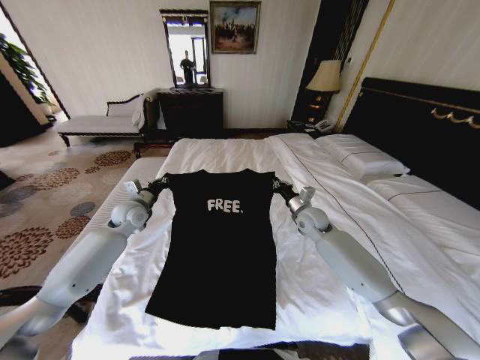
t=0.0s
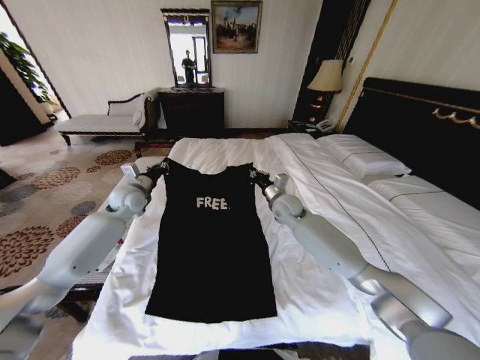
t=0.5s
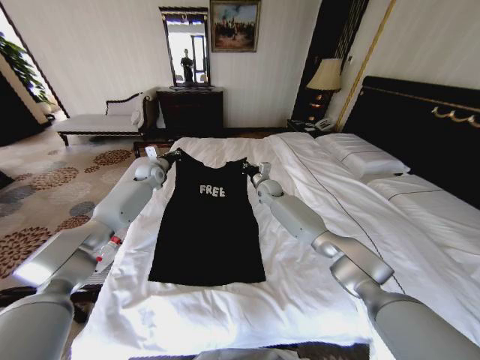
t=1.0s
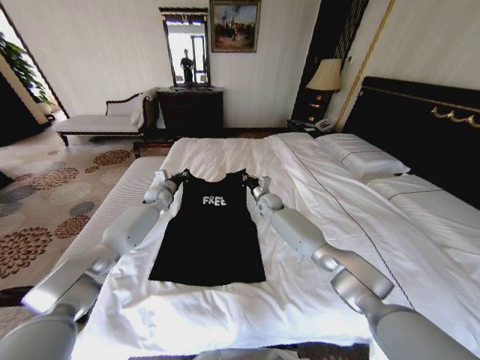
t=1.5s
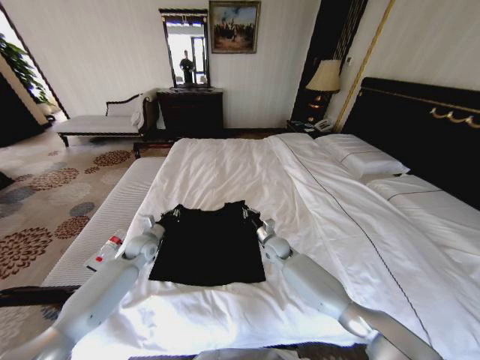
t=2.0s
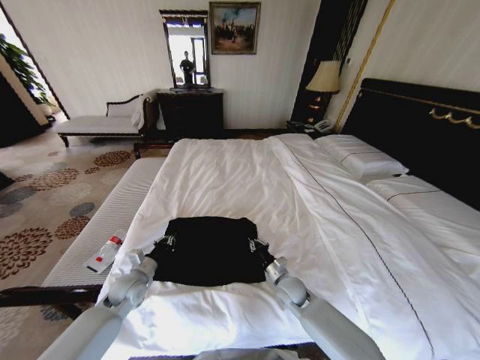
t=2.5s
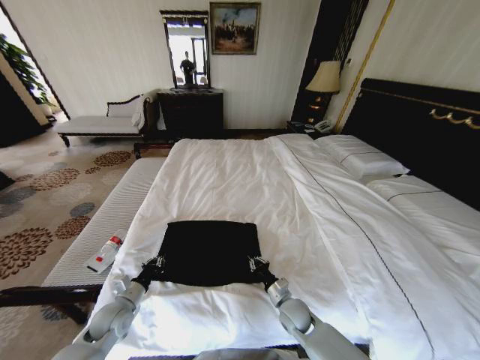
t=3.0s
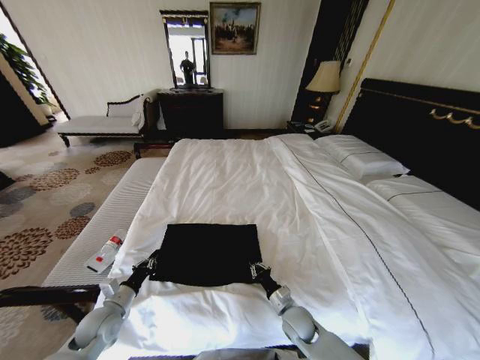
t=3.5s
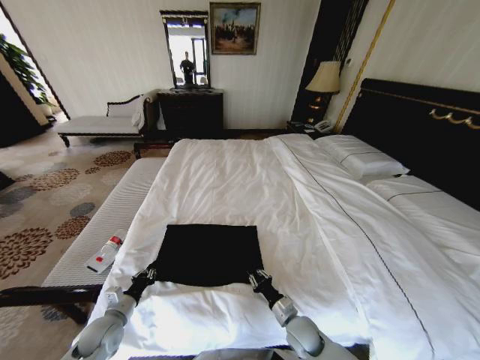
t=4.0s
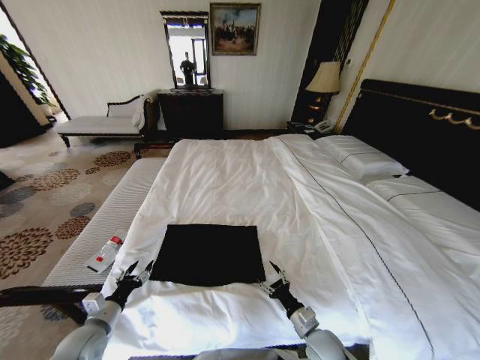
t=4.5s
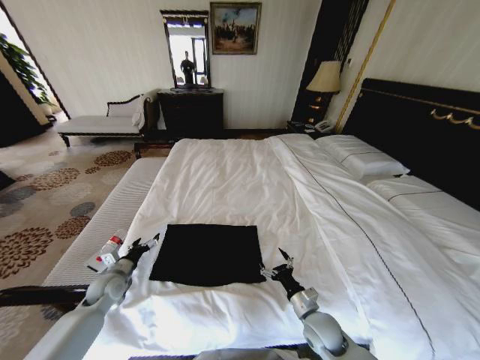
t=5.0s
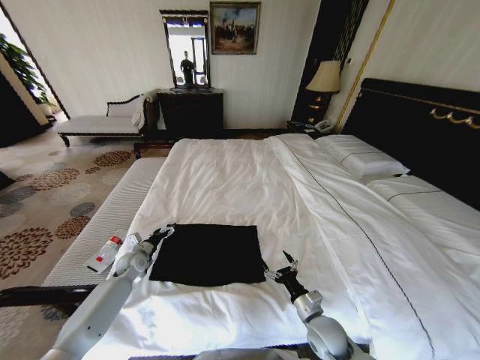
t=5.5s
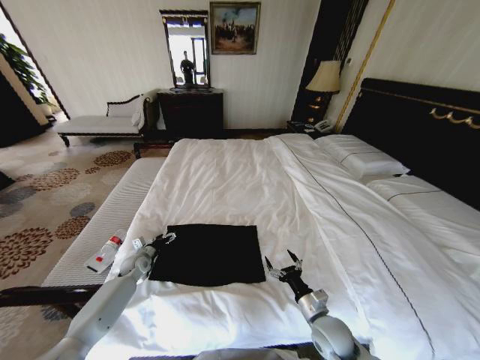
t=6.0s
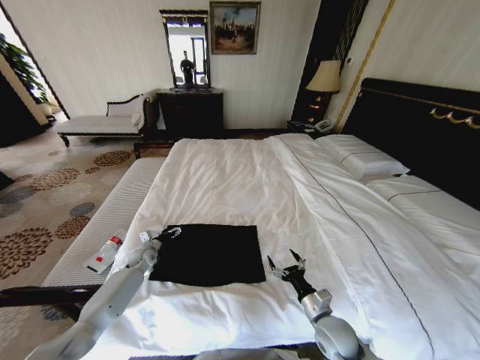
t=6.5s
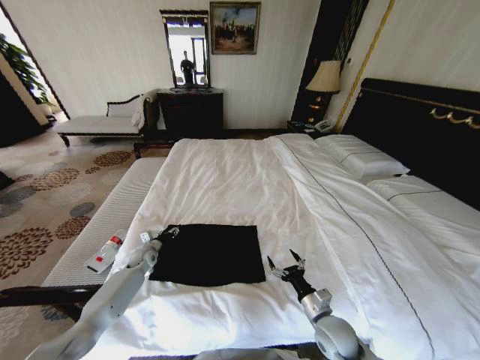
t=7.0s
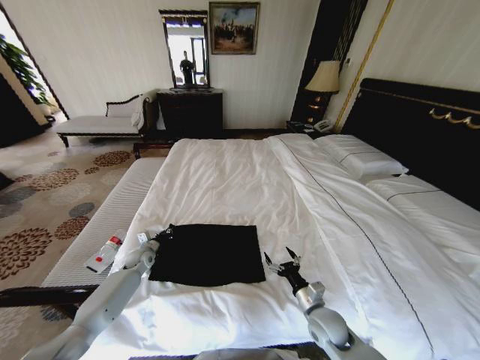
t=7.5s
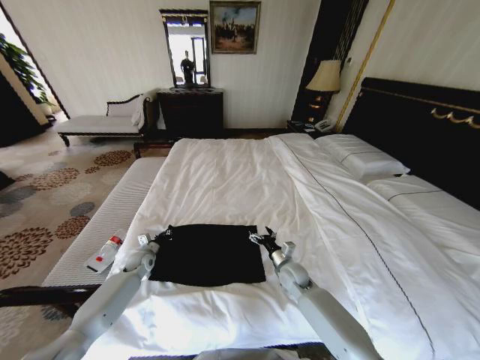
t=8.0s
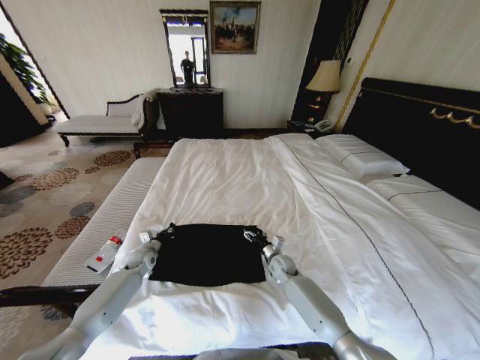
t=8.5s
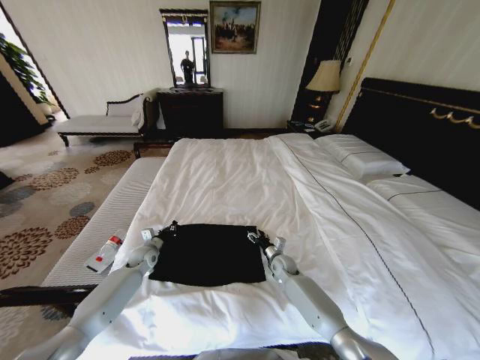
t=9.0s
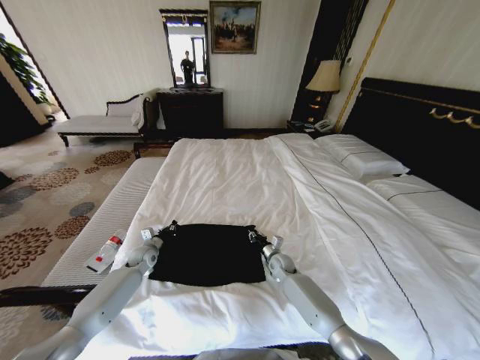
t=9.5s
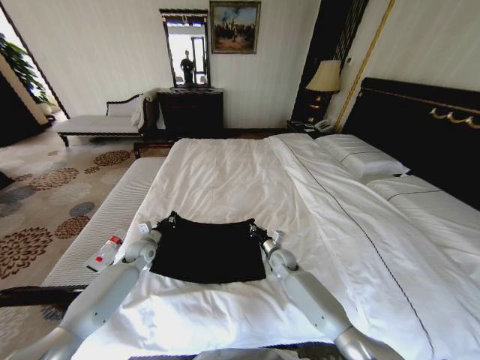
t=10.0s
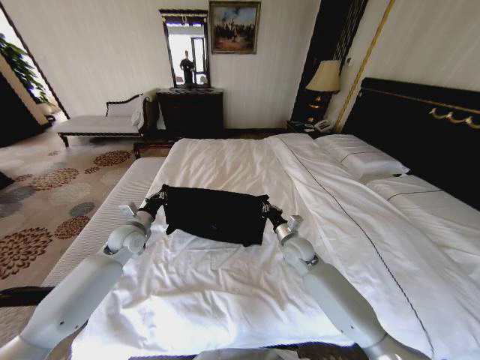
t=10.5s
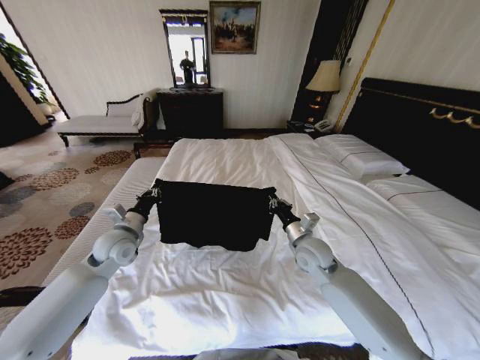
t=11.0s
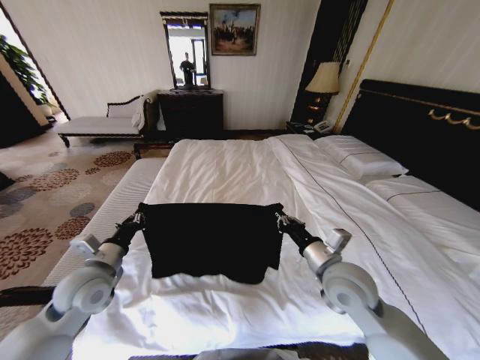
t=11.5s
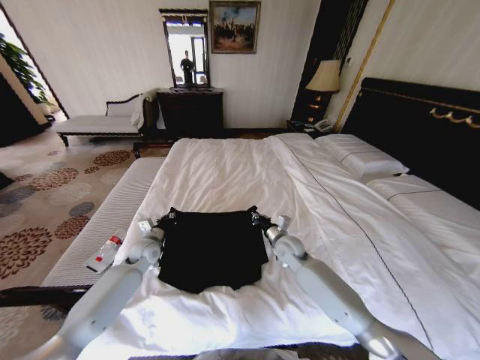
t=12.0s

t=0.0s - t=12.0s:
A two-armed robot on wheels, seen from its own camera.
Task of the whole recording: Fold the clothes on the bed.
t=0.0s - t=2.0s: The right gripper travels downward and to the left by roughly 15 cm, while the left gripper moves downward, about 15 cm, and goes forward and returns, about 15 cm each way.
t=2.0s - t=4.0s: The grippers both shift backward by about 25 cm.
t=4.0s - t=6.0s: The right gripper goes approximately 10 cm upward and to the right, and opens its fingers. The left gripper moves forward, approximately 20 cm, and opens.
t=6.0s - t=8.0s: The right gripper moves forward, some 15 cm; the left gripper closes its fingers.
t=8.0s - t=10.0s: The left gripper travels upward by approximately 5 cm; the right gripper is displaced forward by about 5 cm, and closes.
t=10.0s - t=12.0s: The right gripper shifts about 10 cm upward, while the left gripper moves approximately 15 cm backward and comes back.

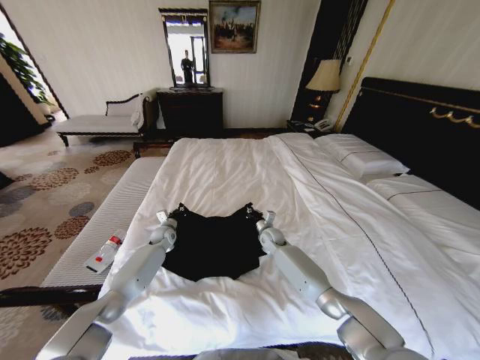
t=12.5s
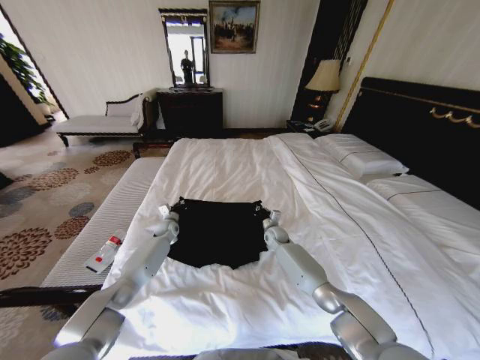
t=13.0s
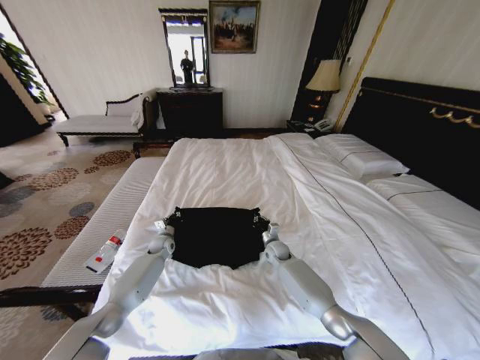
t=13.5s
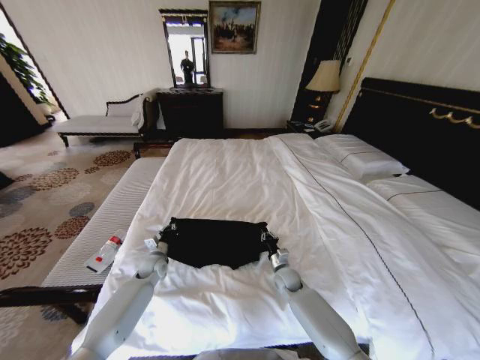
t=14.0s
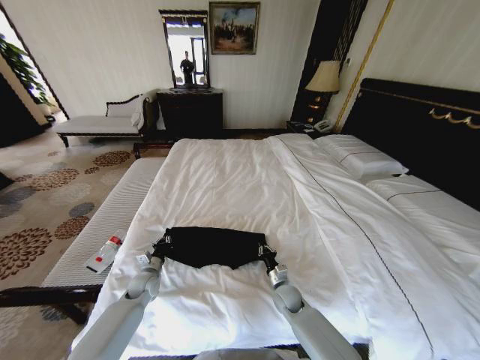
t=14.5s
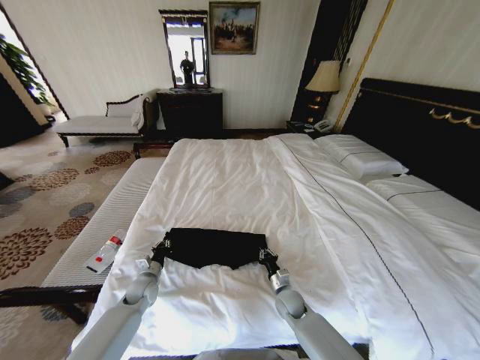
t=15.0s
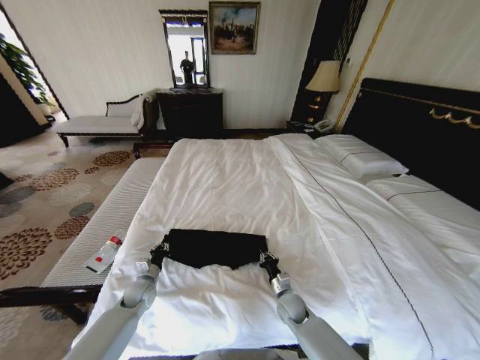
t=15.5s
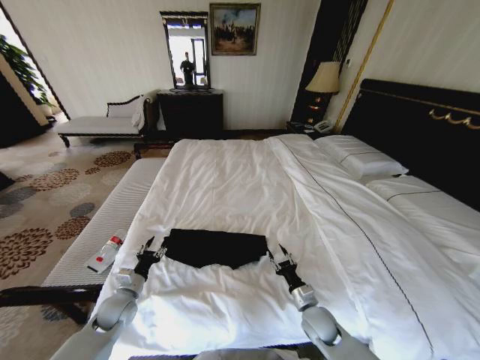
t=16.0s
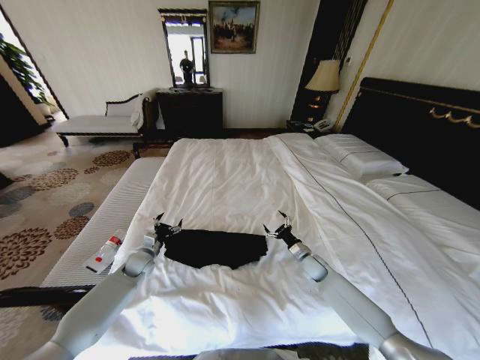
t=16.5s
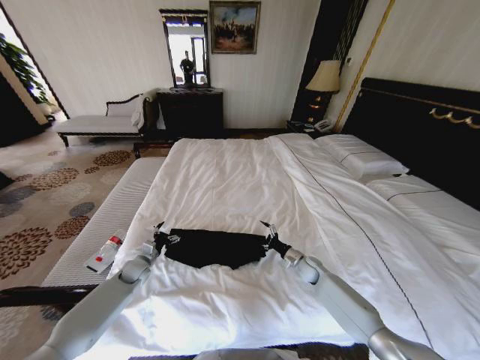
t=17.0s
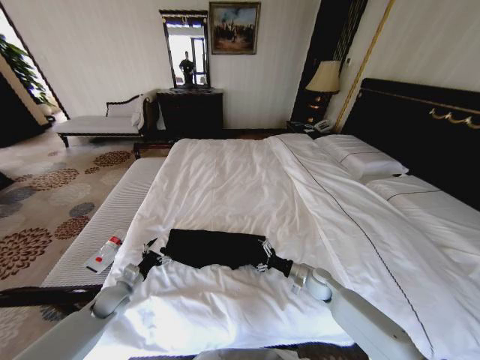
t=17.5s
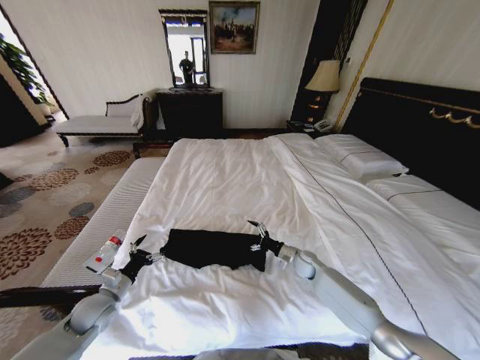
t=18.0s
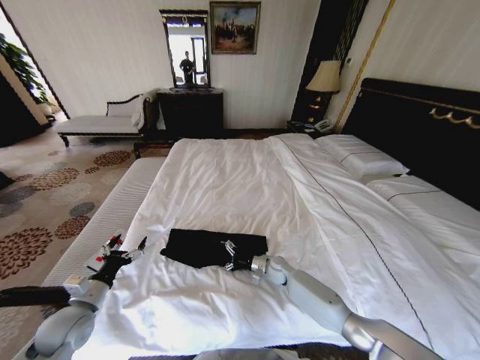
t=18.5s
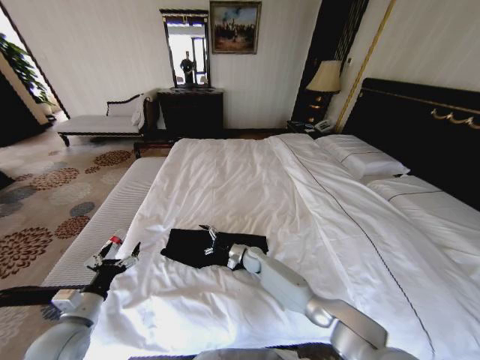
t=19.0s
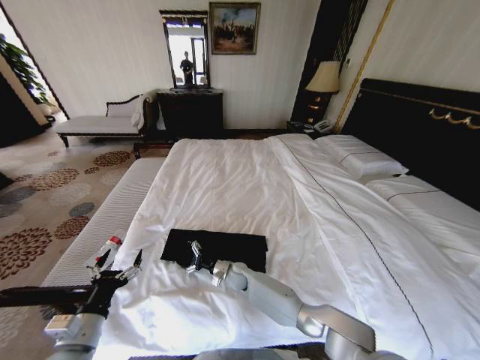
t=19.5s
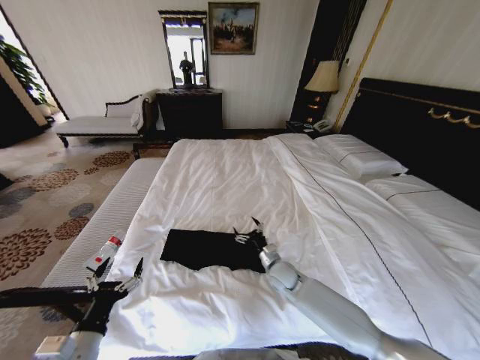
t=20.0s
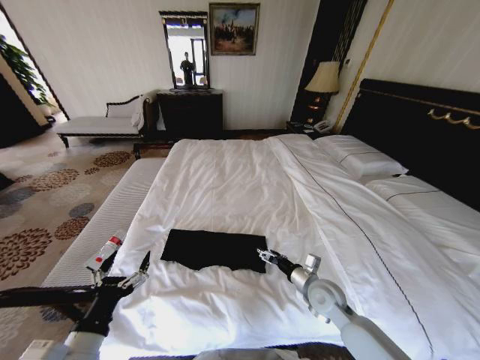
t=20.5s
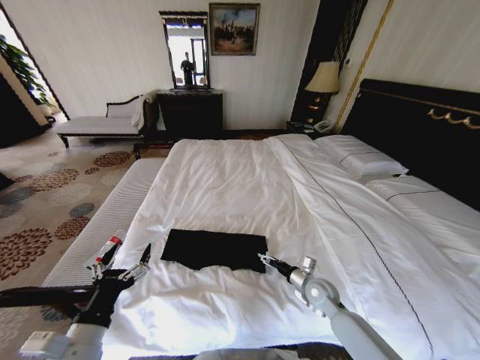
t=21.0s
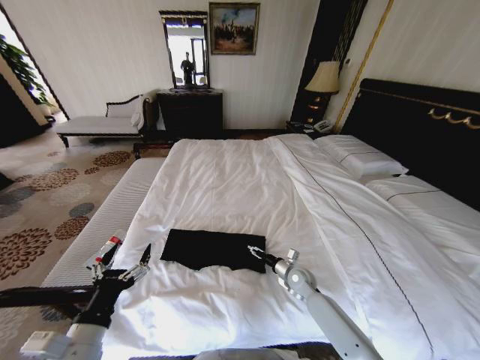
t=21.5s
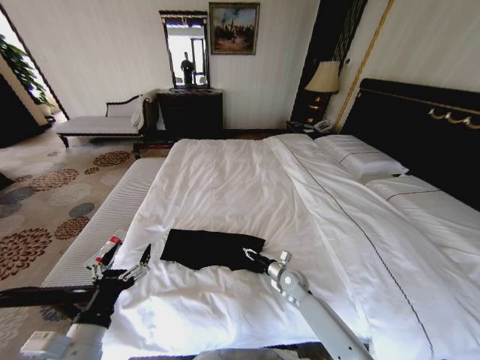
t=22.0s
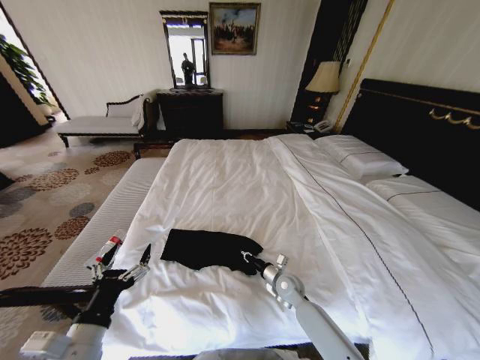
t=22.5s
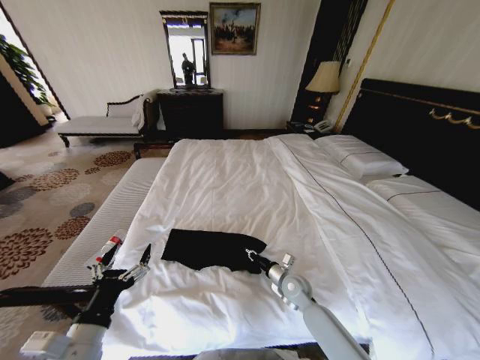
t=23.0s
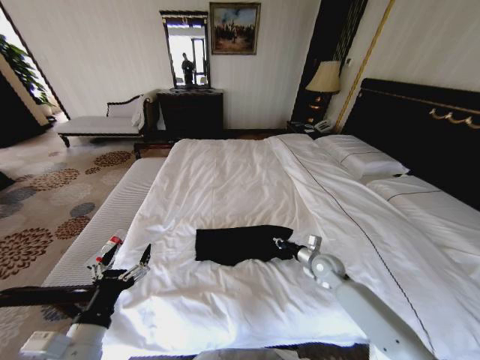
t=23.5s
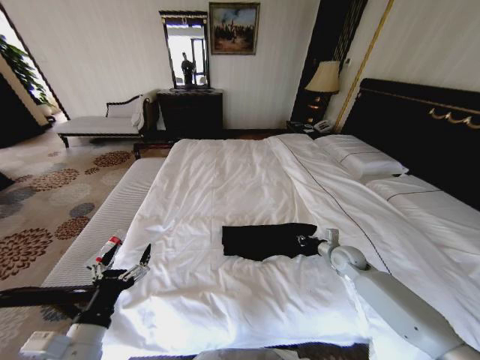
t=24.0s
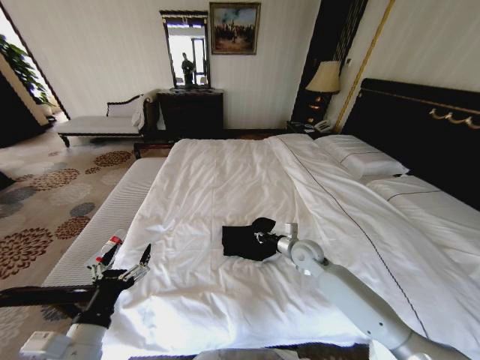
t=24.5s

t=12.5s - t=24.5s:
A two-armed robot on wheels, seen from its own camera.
Task of the whole recording: Fold the clothes on the bed.
t=12.5s - t=14.5s: The left gripper shifts some 20 cm backward; the right gripper moves backward and downward, approximately 20 cm.
t=14.5s - t=16.5s: The left gripper travels forward by some 5 cm, and opens, while the right gripper shifts about 15 cm to the right, forward and upward, and opens its fingers.
t=16.5s - t=18.5s: The right gripper heads to the left, covering approximately 15 cm. The left gripper travels backward and upward by roughly 20 cm.
t=18.5s - t=20.5s: The right gripper shifts some 20 cm backward and upward, and travels to the left and back again, some 15 cm each way. Meanwhile the left gripper is displaced backward, to the right and upward by about 15 cm.
t=20.5s - t=22.5s: The right gripper shifts roughly 15 cm downward, to the left and forward, and closes.
t=22.5s - t=24.5s: The right gripper is displaced upward and forward by about 15 cm, and moves approximately 20 cm to the right and comes back.

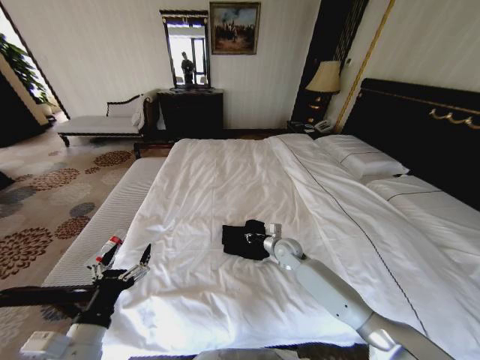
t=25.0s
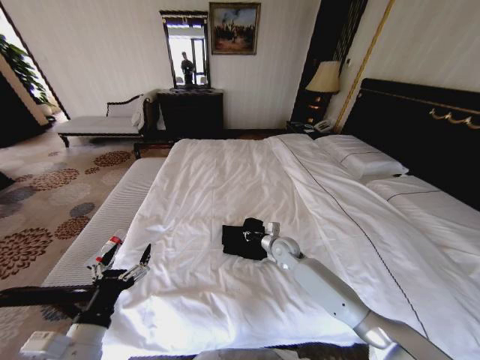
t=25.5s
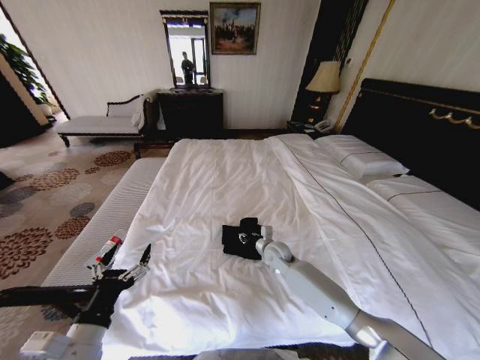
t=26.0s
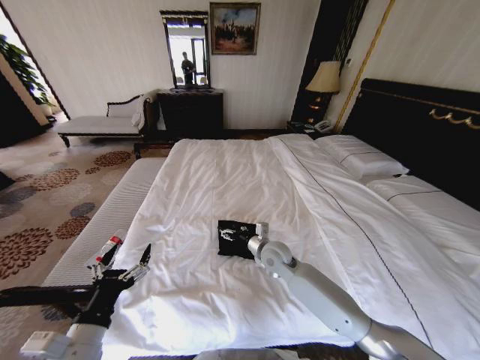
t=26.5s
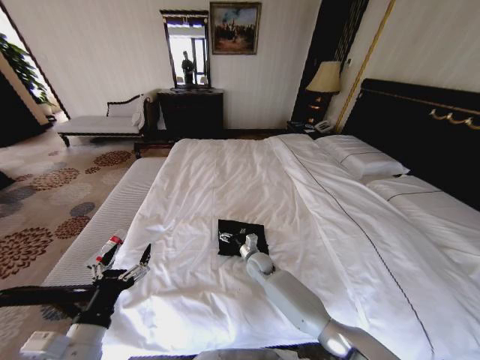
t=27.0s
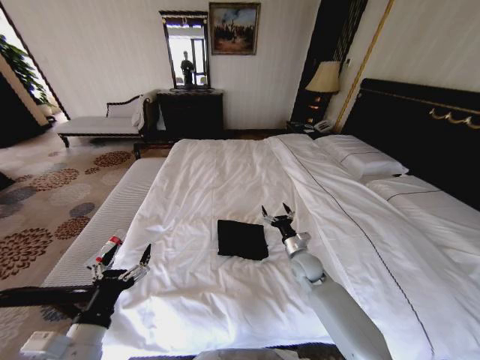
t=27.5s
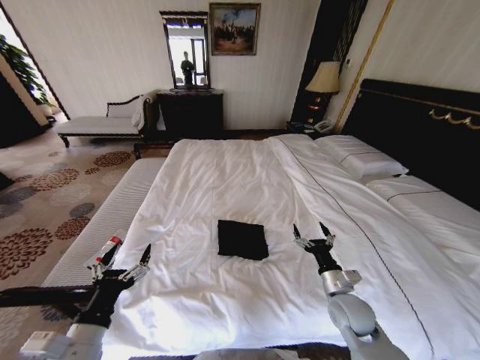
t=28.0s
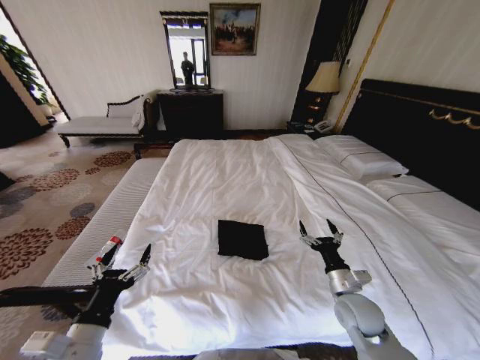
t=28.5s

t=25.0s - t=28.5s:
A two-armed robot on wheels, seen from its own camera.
Task of the whole recording: Fold the clothes on the bed.
t=25.0s - t=27.0s: The right gripper travels to the left and downward by about 10 cm, and opens up.
t=27.0s - t=28.5s: The right gripper goes some 30 cm to the right, backward and upward.
